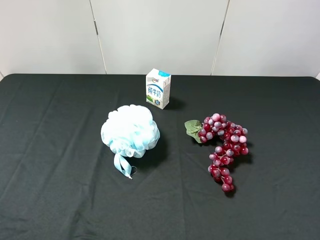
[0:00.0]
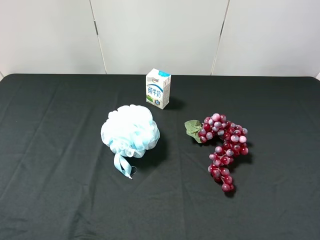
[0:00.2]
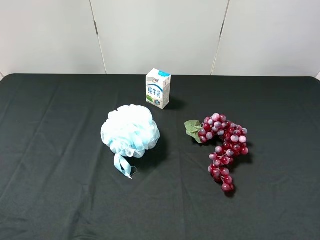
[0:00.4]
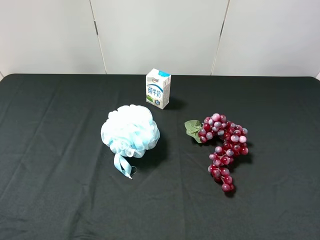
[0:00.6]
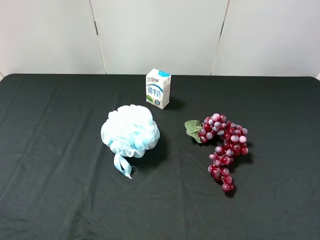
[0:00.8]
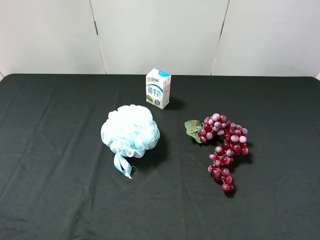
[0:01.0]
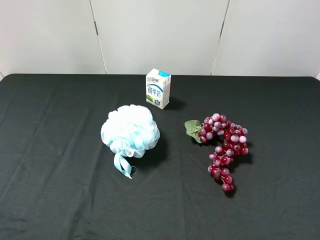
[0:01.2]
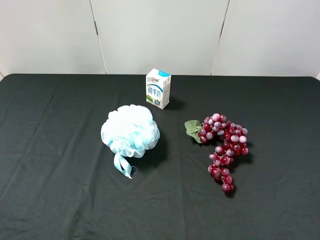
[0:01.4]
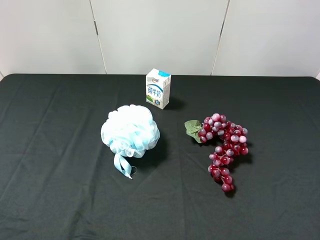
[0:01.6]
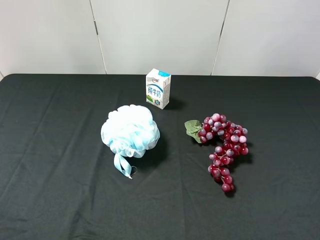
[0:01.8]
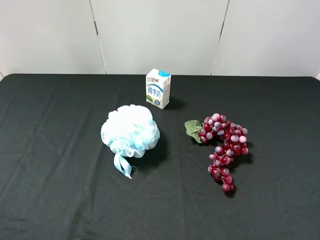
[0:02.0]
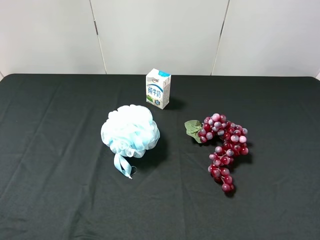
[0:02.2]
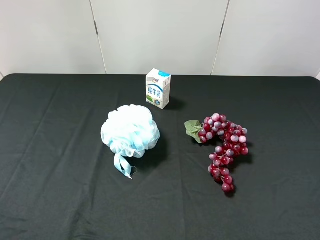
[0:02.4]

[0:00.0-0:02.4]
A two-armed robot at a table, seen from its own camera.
Task of the whole recording: use the left gripper to pick up the item and transfer it from the left gripper to the right gripper.
0:01.2 to 0:02.4: Both grippers stay put.
